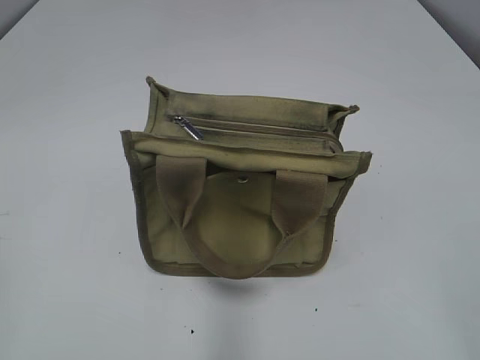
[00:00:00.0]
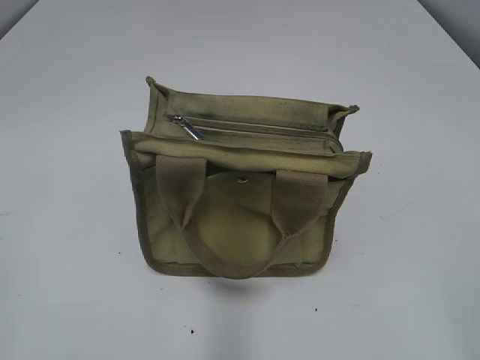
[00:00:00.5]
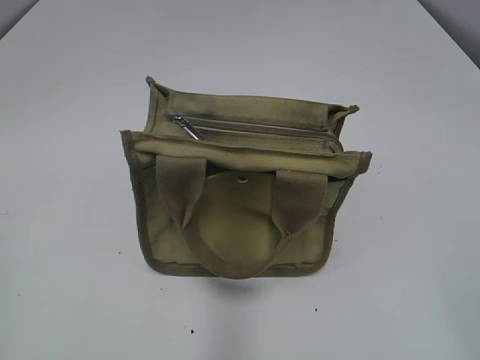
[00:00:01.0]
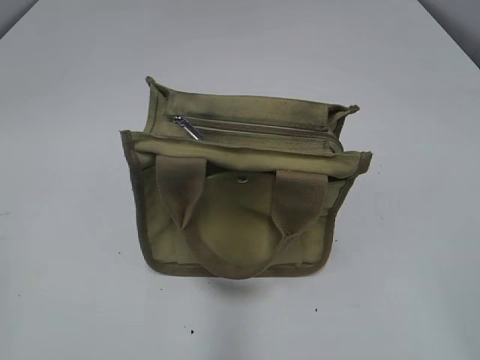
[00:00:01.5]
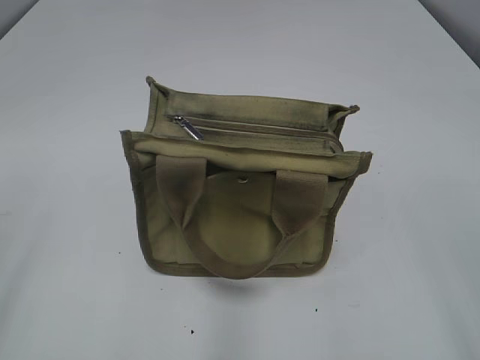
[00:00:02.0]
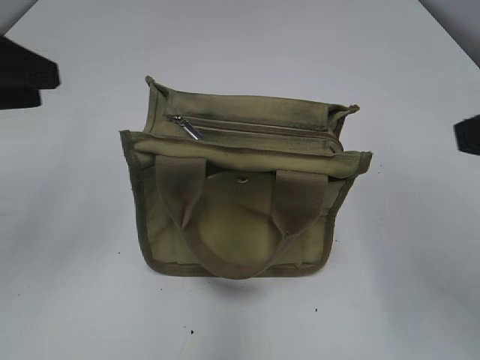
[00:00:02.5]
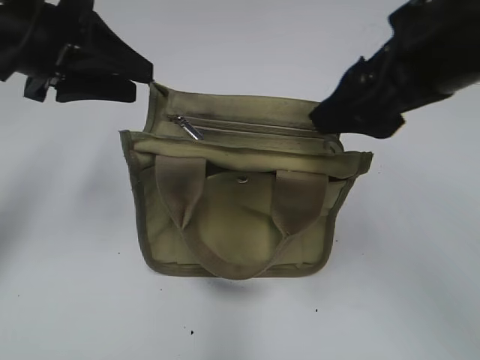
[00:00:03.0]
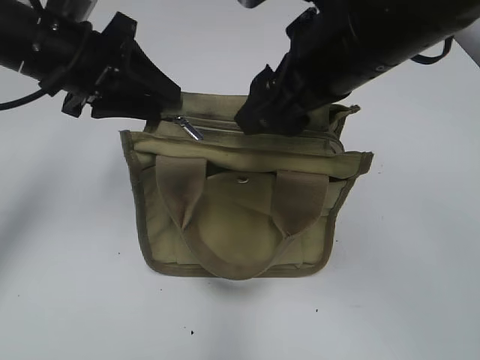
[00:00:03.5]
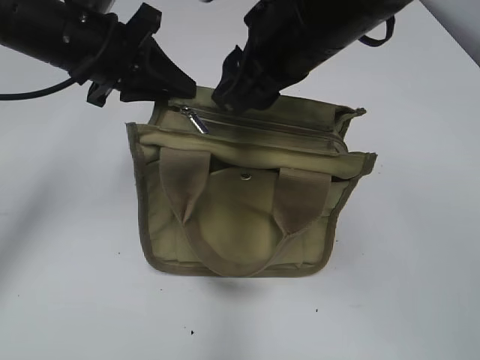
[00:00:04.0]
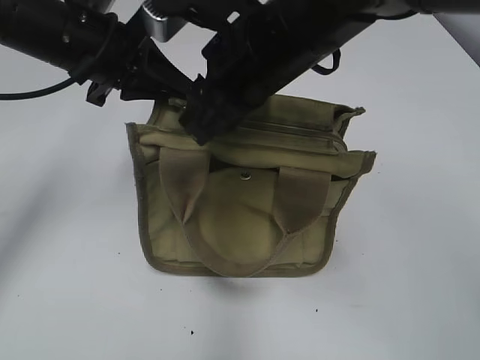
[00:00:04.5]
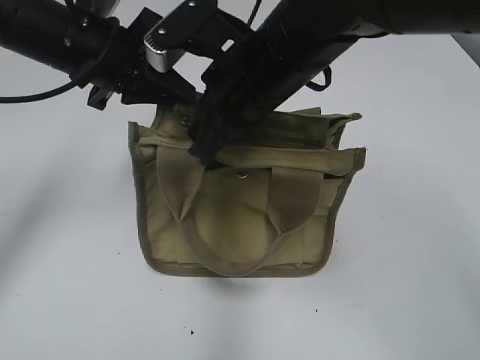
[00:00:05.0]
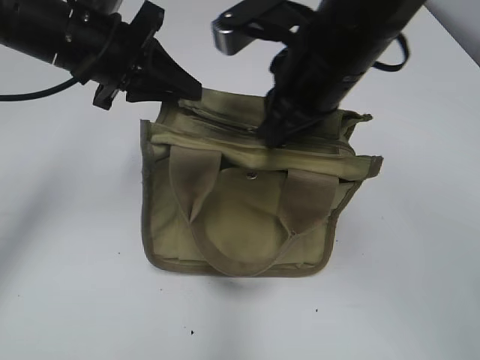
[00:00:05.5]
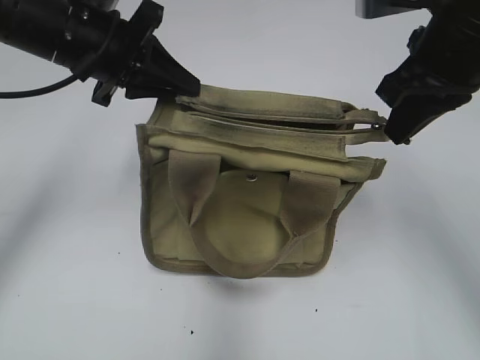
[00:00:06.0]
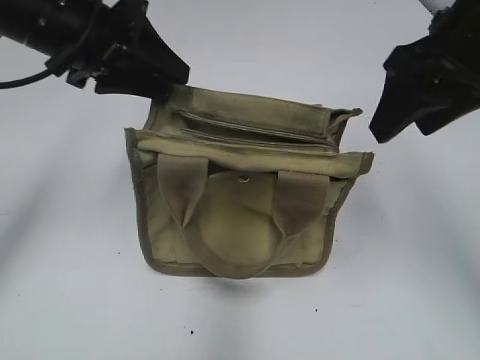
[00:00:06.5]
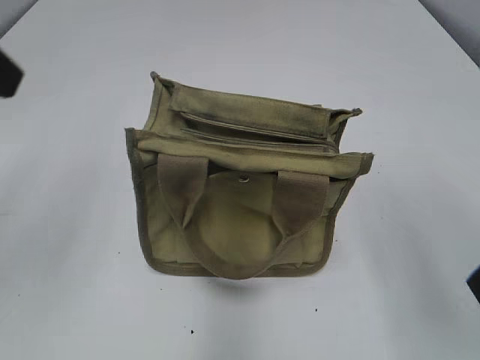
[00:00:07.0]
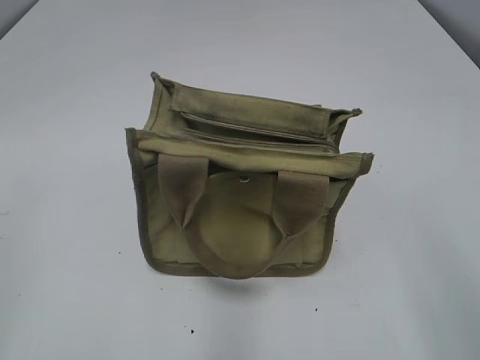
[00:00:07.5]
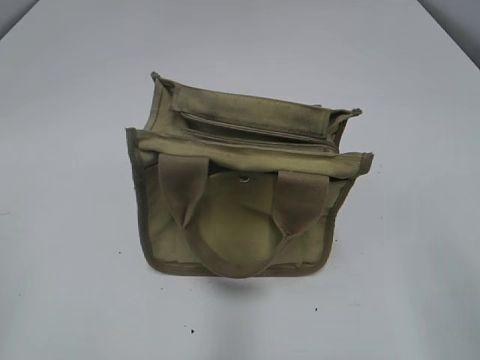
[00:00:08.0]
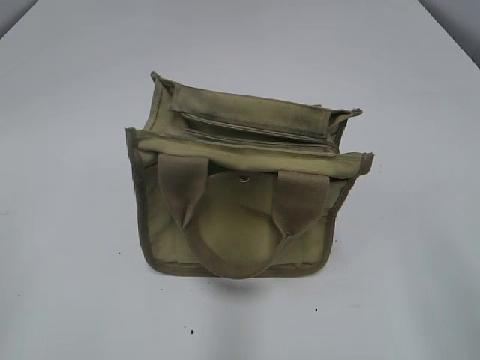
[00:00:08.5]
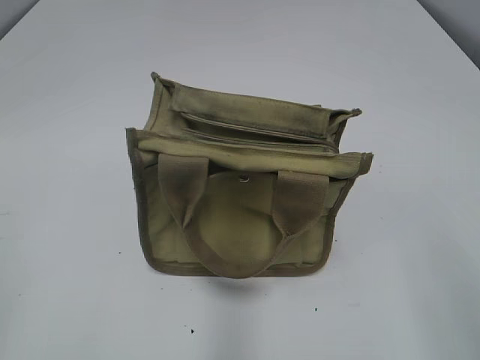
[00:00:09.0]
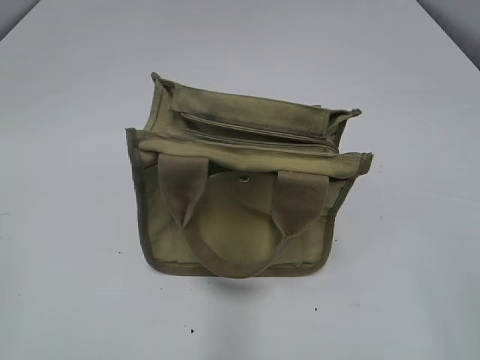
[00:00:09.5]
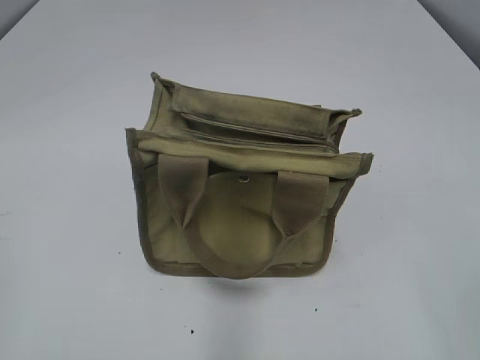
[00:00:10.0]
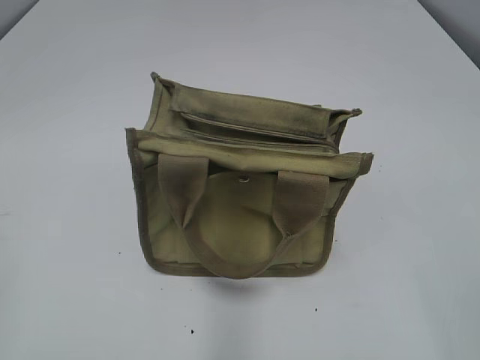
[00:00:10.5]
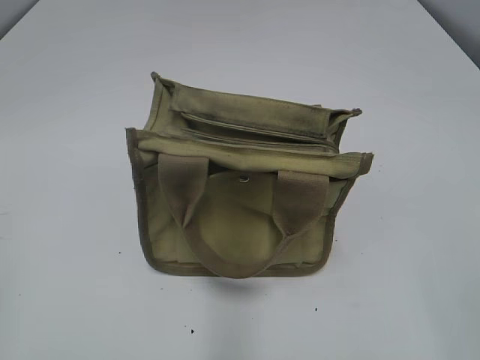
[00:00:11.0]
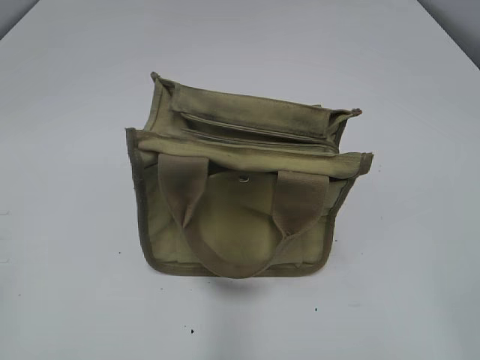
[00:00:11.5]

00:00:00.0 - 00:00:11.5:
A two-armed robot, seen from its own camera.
Step, 00:00:00.0 - 00:00:06.0: Pull open the zipper with your right hand.
00:00:02.0 - 00:00:04.0: The left gripper travels forward and to the right by approximately 35 cm, and closes; the right gripper shifts some 35 cm forward and to the left, and closes.
00:00:04.0 - 00:00:06.0: The right gripper is displaced to the right by about 10 cm, and closes its fingers.
00:00:06.0 - 00:00:07.5: The left gripper heads backward and to the left, covering roughly 35 cm, and opens its fingers. The right gripper goes some 25 cm backward, and opens up.

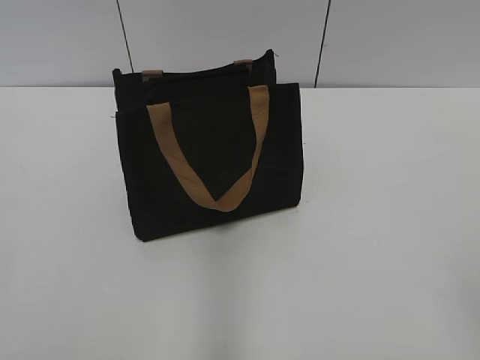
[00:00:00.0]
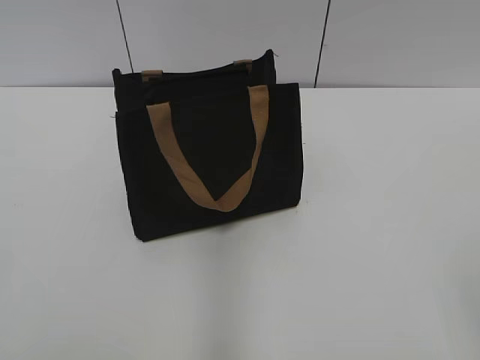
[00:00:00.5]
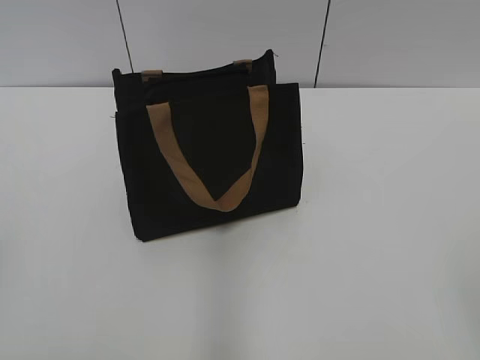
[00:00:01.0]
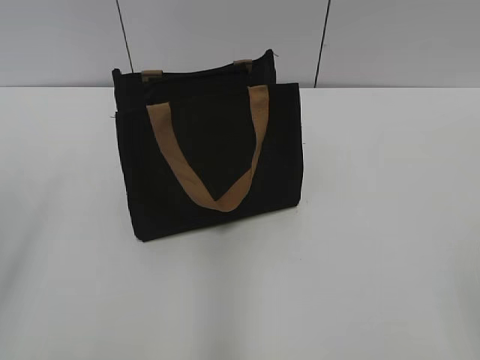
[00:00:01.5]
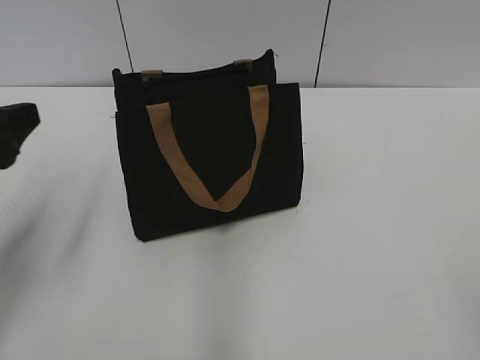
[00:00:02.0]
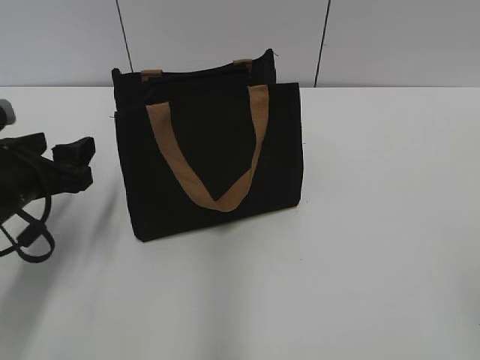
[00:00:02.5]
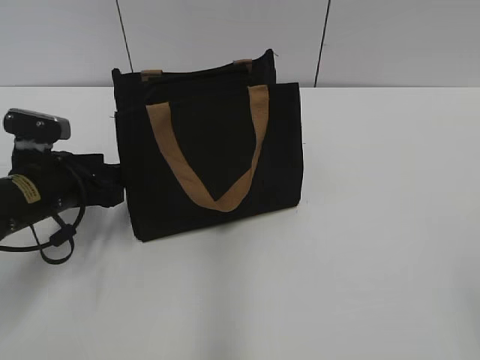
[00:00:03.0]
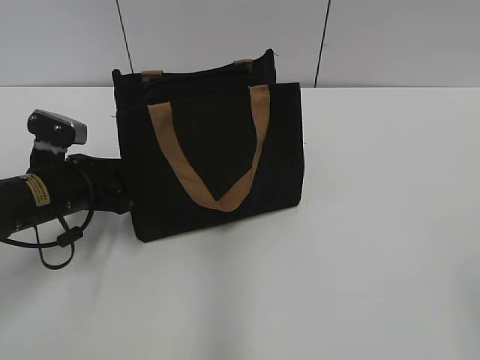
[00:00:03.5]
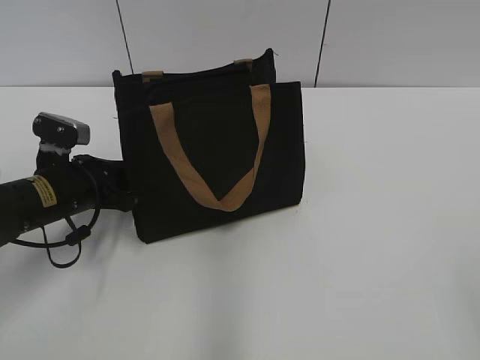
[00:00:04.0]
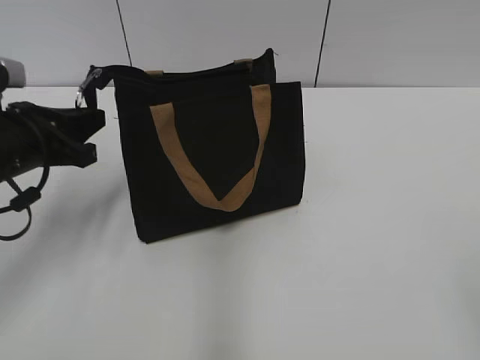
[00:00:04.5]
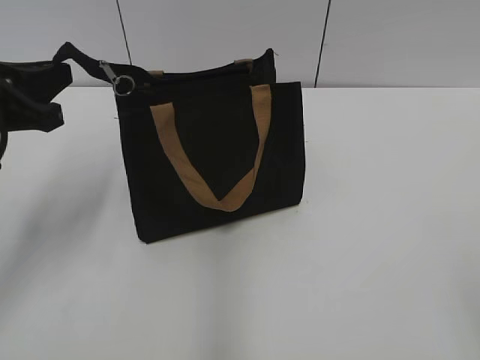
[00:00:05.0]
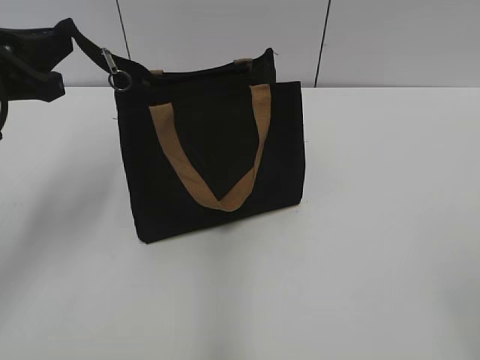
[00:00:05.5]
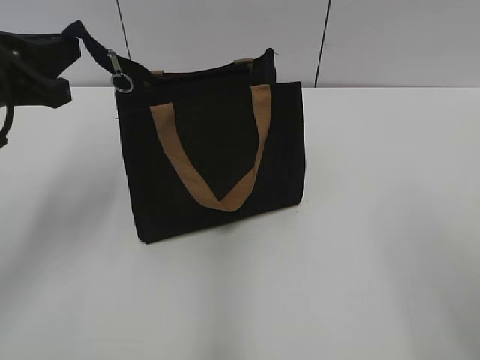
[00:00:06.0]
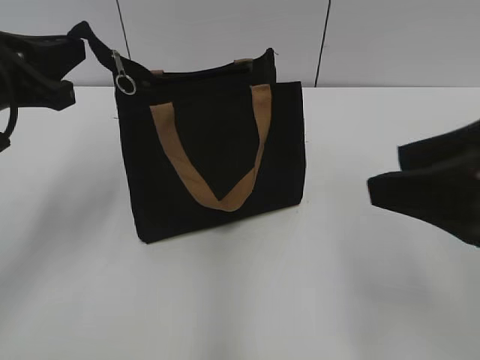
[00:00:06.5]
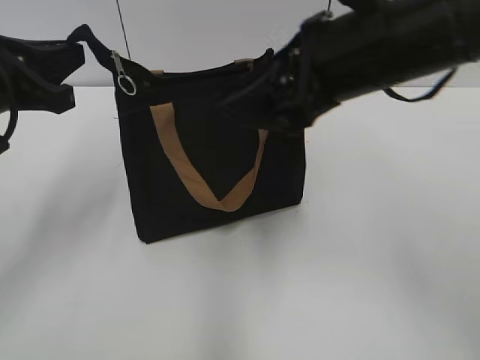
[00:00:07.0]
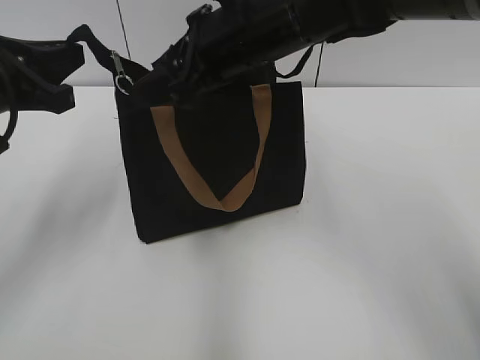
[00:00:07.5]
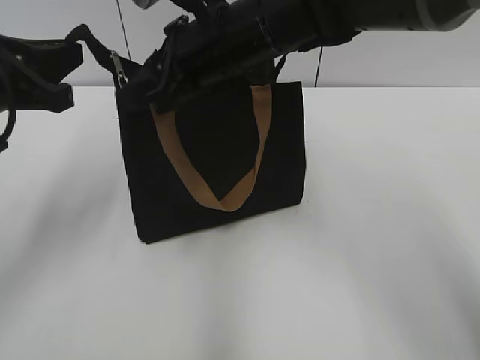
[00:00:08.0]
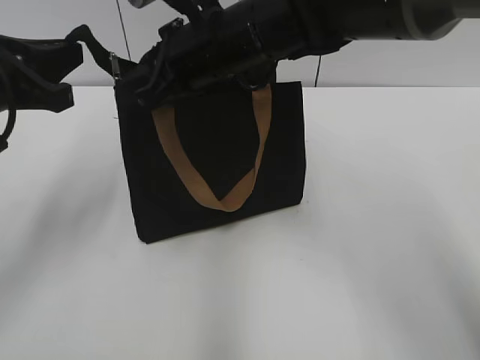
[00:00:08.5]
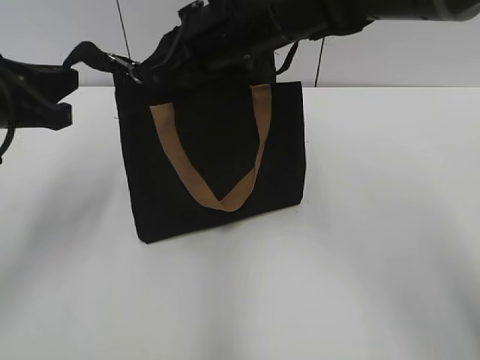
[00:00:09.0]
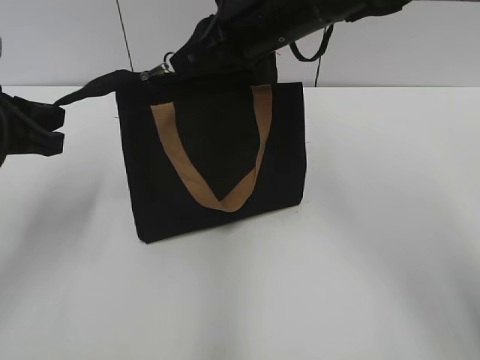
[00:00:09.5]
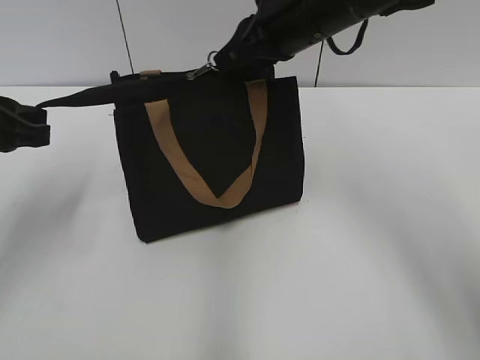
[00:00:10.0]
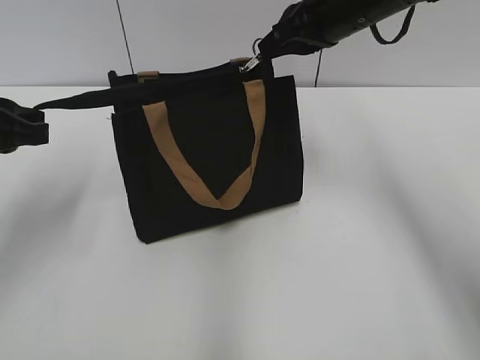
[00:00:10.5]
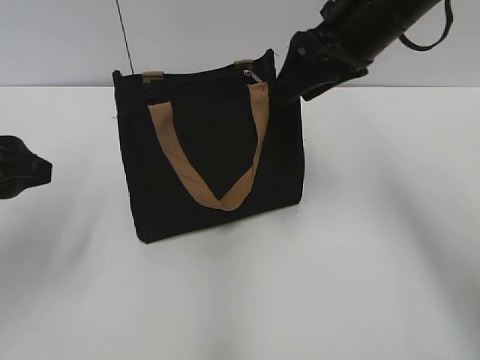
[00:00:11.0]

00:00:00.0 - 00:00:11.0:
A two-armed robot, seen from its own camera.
Step, 00:00:00.0 - 00:00:10.5: Zip up the bag with your right hand.
00:00:02.0 - 00:00:03.5: The left gripper goes some 15 cm downward and forward.
00:00:03.5 - 00:00:05.5: The left gripper shifts approximately 15 cm upward, and closes its fingers.
00:00:05.5 - 00:00:07.5: The right gripper moves forward and to the left, roughly 40 cm.
00:00:07.5 - 00:00:09.0: The right gripper closes.
00:00:09.0 - 00:00:11.0: The right gripper travels to the right by about 10 cm, and opens, while the left gripper opens up.

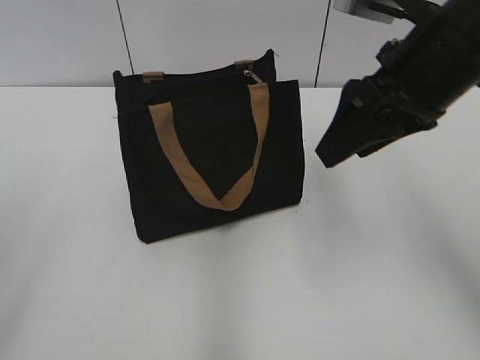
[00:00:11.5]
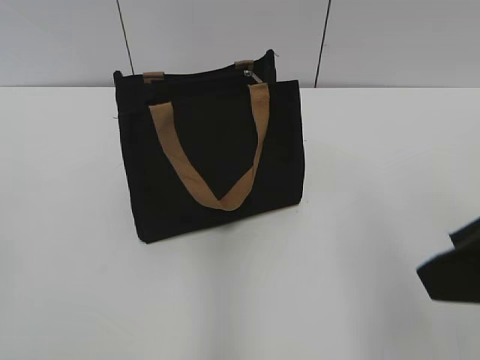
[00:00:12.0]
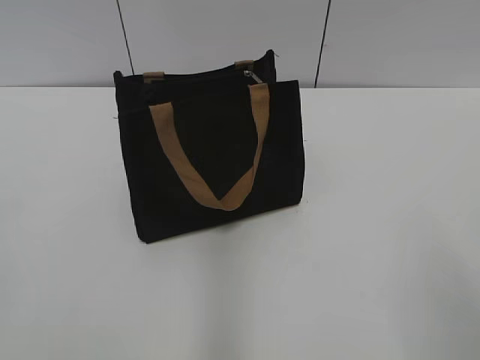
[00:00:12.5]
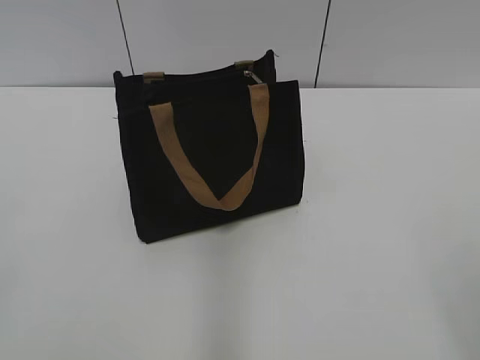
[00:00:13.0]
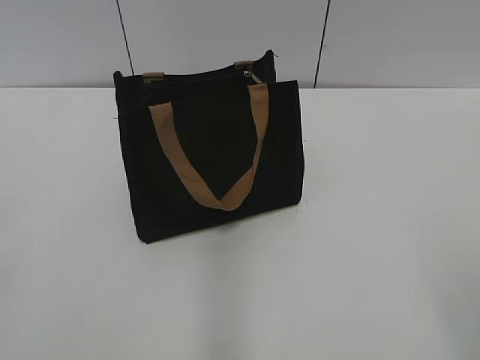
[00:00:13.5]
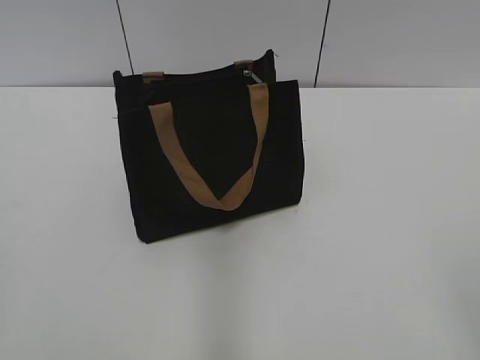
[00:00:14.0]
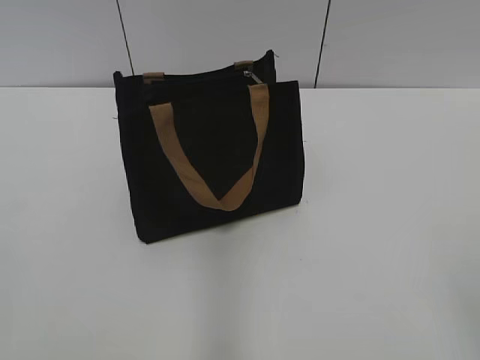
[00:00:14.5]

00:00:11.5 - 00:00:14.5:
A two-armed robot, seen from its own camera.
00:00:11.5 - 00:00:13.0: The right gripper moves backward and to the right, about 30 cm.
